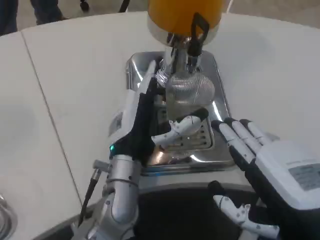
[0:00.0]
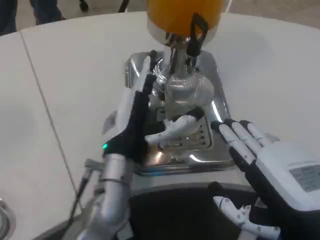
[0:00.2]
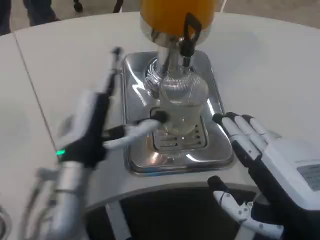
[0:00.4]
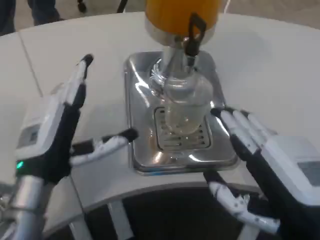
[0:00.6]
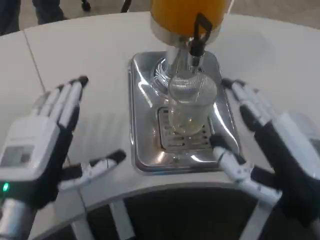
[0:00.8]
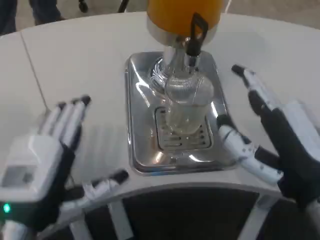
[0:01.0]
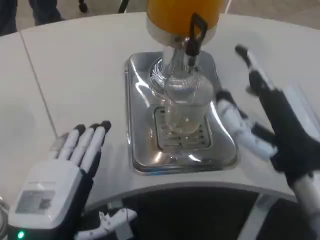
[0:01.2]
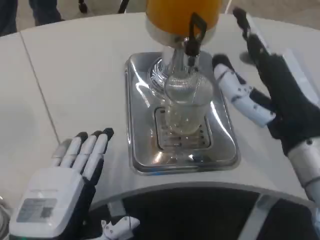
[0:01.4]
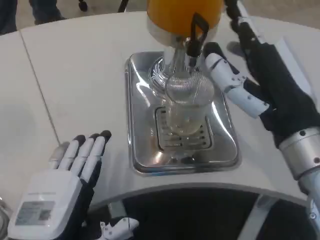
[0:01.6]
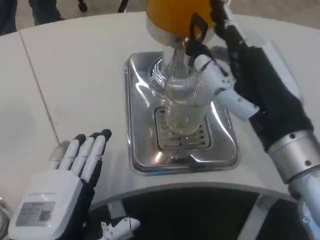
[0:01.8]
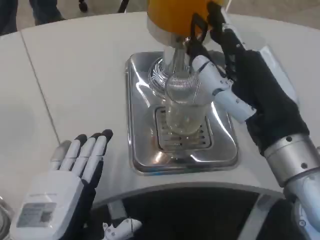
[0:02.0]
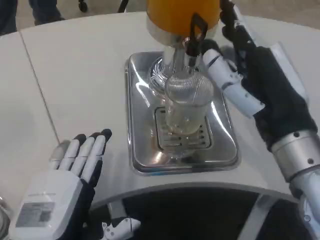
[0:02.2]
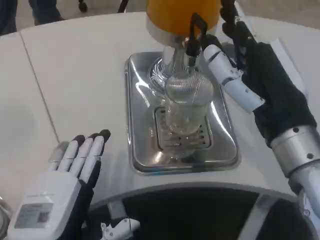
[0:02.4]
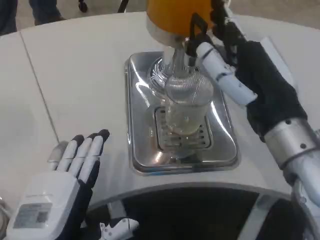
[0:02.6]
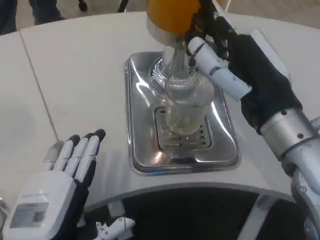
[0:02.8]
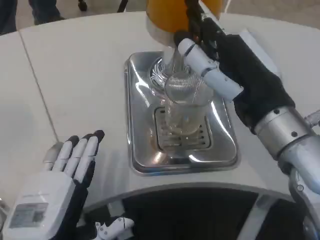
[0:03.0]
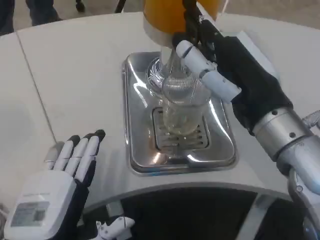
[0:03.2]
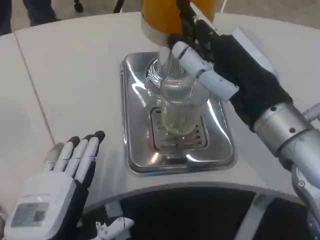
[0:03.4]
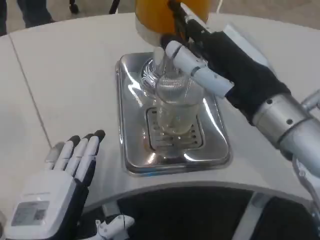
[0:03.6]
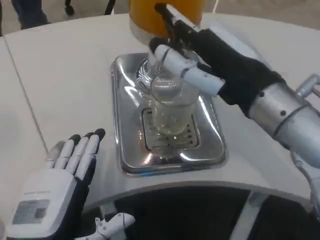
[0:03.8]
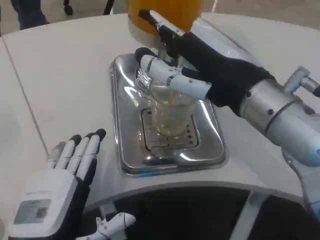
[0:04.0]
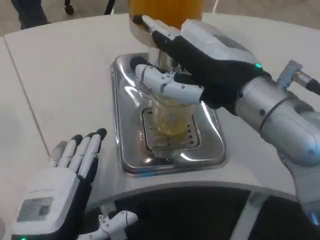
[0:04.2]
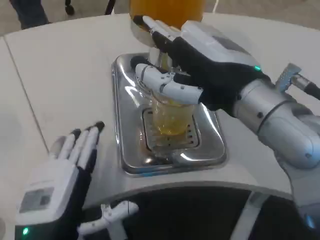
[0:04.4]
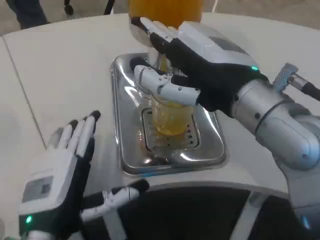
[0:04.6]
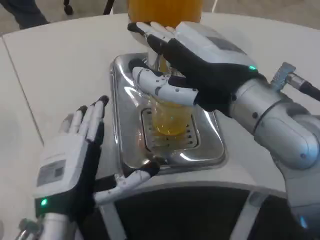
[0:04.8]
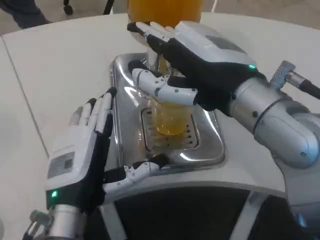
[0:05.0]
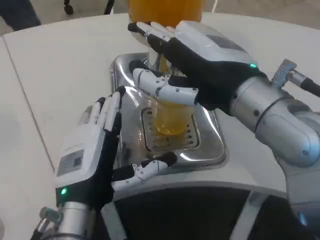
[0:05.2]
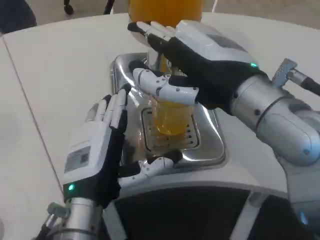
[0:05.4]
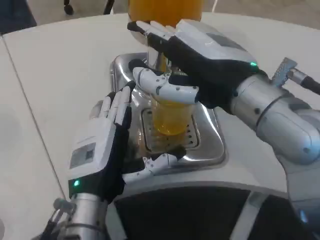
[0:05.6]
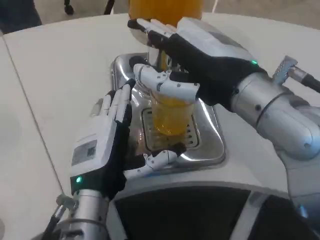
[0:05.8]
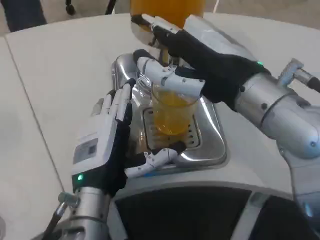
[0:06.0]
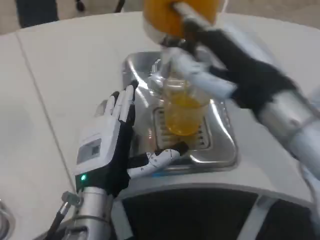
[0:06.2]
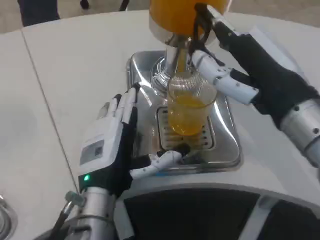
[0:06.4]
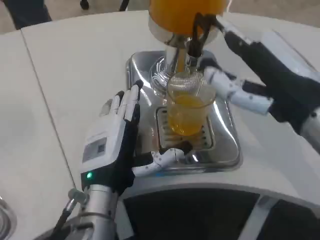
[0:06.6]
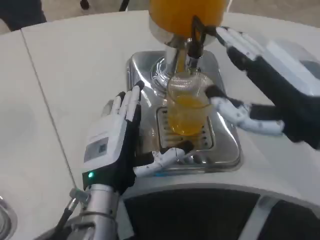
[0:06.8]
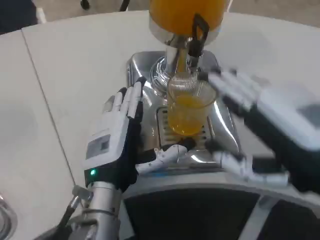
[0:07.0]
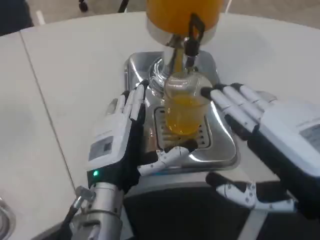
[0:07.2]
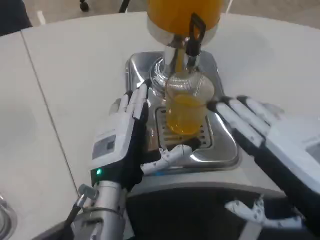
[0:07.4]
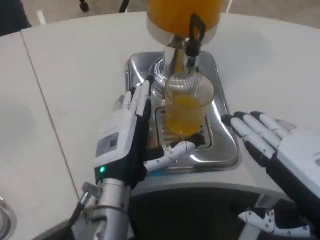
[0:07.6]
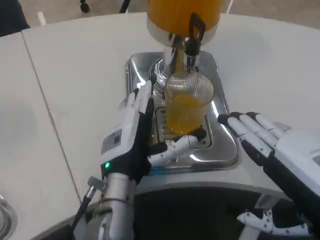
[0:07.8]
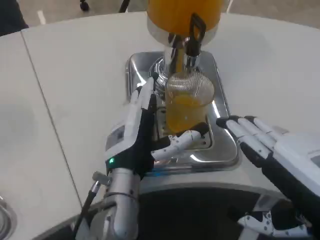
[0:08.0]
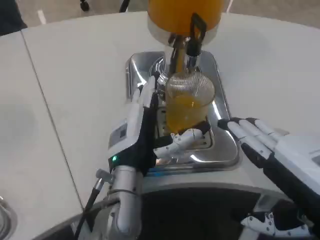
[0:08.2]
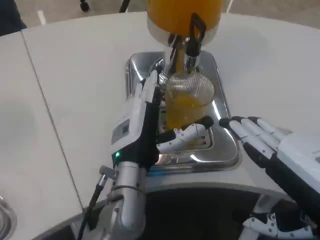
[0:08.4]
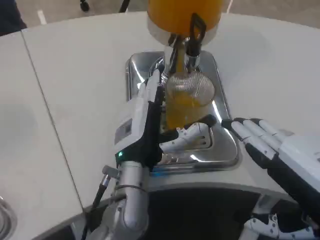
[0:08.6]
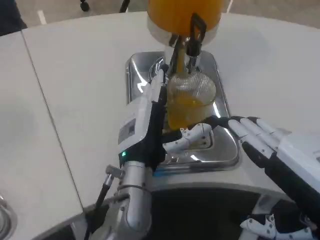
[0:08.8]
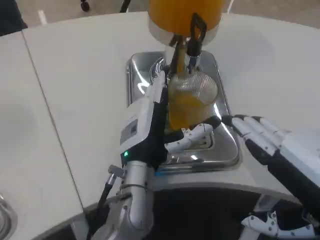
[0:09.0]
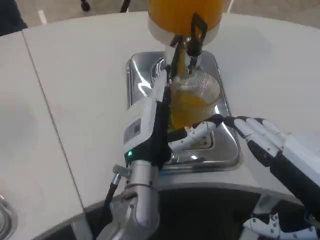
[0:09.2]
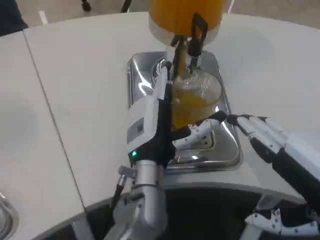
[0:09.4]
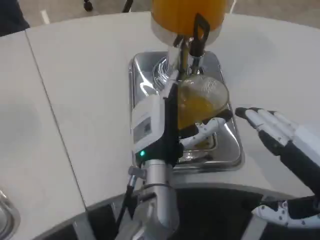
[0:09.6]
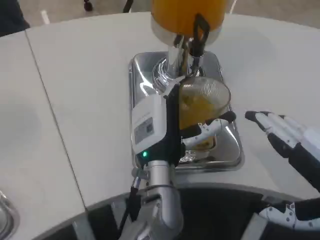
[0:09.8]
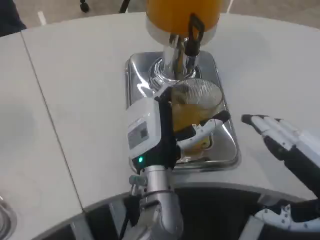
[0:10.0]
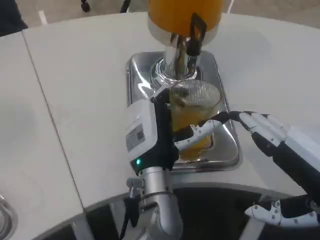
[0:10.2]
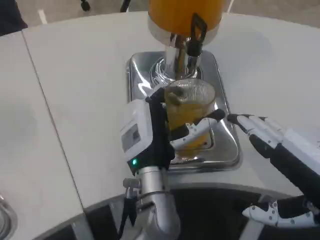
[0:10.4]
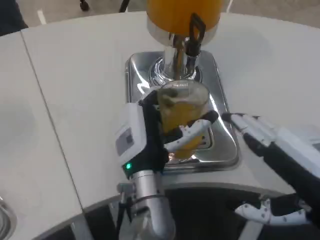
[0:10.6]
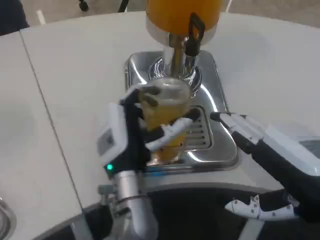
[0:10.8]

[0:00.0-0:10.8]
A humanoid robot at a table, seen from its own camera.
Task of the whole recording: Grasp the cup under the faucet to collect the drink, then remove the cup.
0:00.0 to 0:01.6: The left hand is displaced backward and to the left by approximately 20 cm, while the right hand goes about 10 cm forward and upward.
0:01.6 to 0:03.0: The hands make only small movements.
0:03.0 to 0:04.6: The right hand moves roughly 5 cm.
0:04.6 to 0:06.2: The left hand is displaced forward and to the right by about 10 cm.
0:06.2 to 0:07.8: The right hand goes about 15 cm backward, to the right and downward.
0:07.8 to 0:09.2: The hands move only a little.

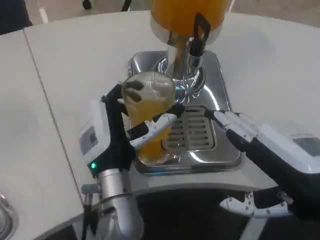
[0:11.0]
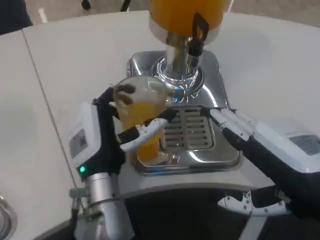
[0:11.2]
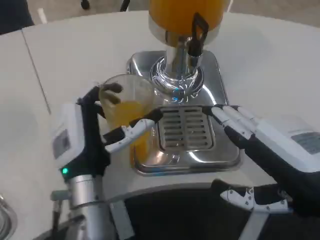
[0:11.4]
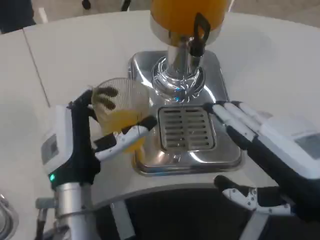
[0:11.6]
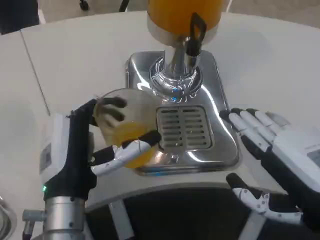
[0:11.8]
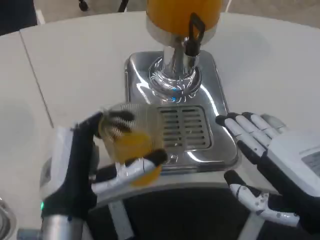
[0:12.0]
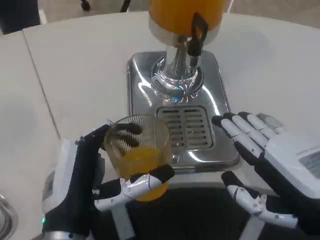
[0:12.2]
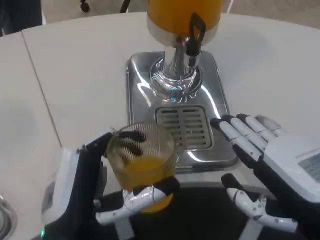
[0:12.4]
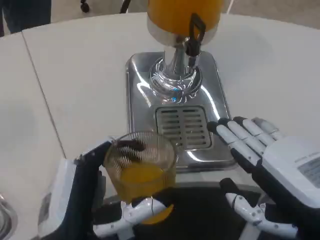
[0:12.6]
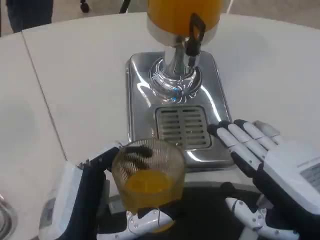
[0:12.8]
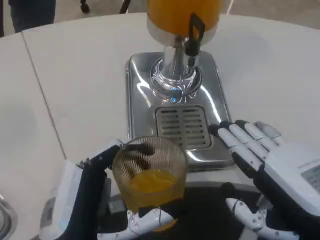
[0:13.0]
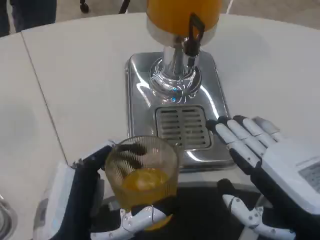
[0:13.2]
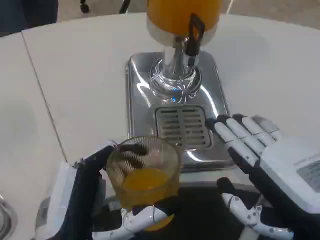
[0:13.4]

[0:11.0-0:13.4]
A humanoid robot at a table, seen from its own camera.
Task of the whole recording: Grasp the cup under the faucet to collect the drink, then remove the cup.
0:11.0 to 0:12.2: The left hand heads backward and to the left, covering approximately 15 cm.

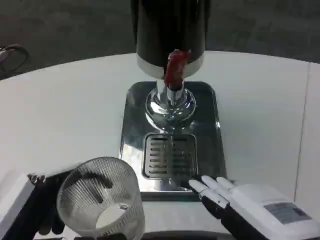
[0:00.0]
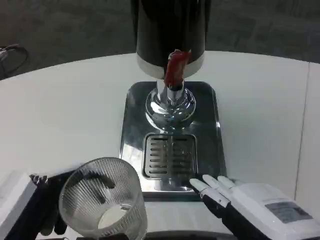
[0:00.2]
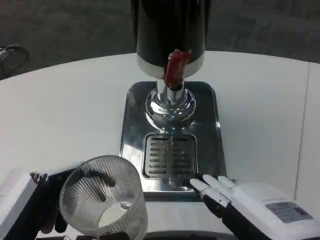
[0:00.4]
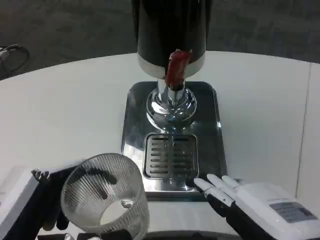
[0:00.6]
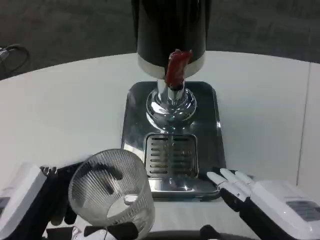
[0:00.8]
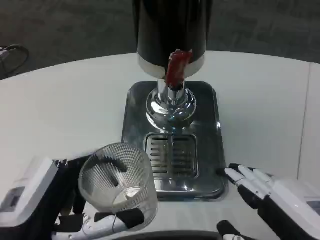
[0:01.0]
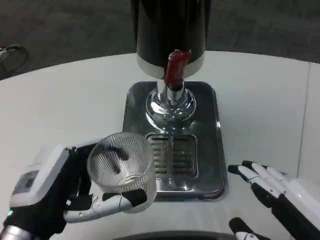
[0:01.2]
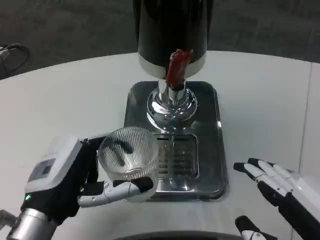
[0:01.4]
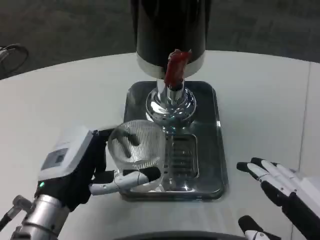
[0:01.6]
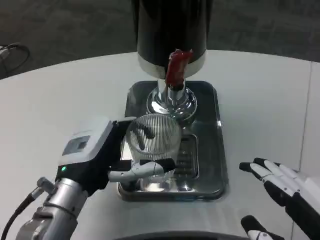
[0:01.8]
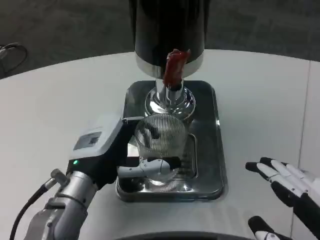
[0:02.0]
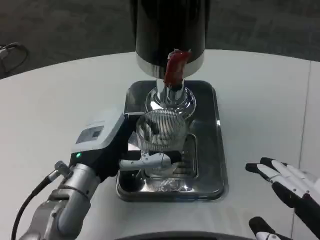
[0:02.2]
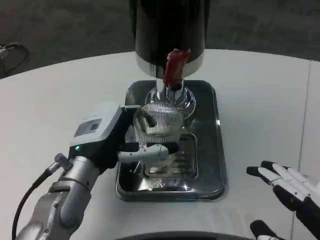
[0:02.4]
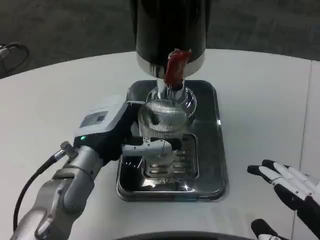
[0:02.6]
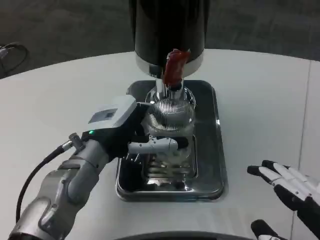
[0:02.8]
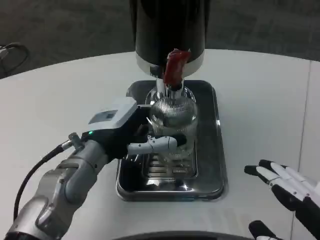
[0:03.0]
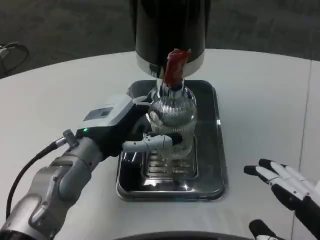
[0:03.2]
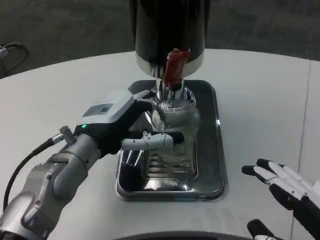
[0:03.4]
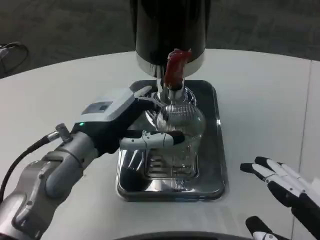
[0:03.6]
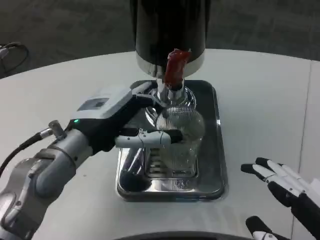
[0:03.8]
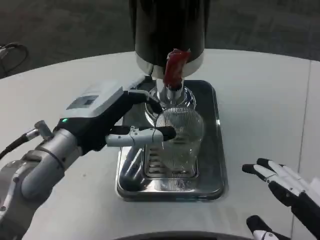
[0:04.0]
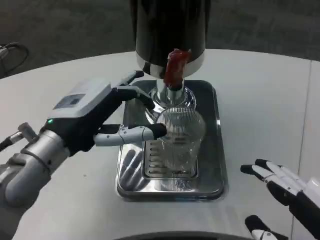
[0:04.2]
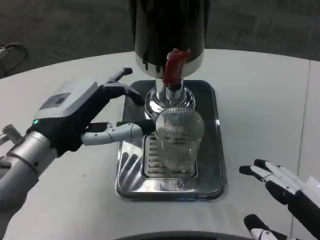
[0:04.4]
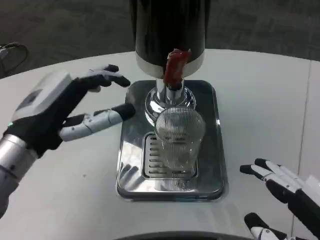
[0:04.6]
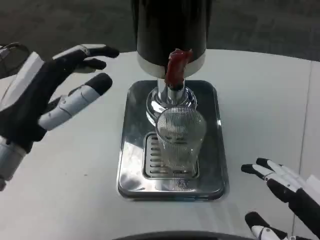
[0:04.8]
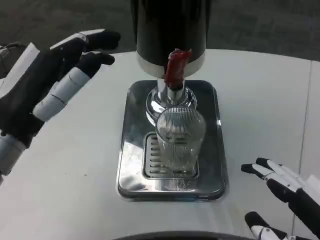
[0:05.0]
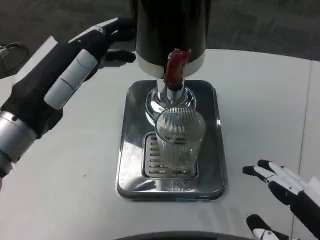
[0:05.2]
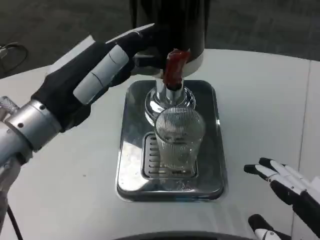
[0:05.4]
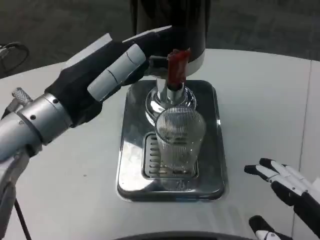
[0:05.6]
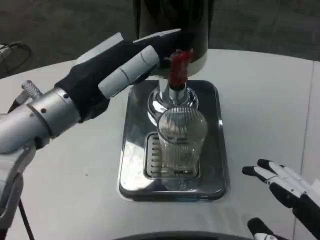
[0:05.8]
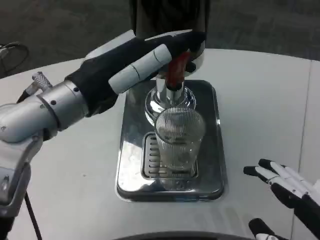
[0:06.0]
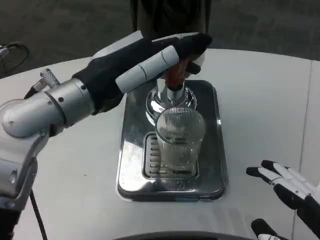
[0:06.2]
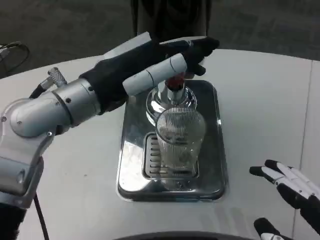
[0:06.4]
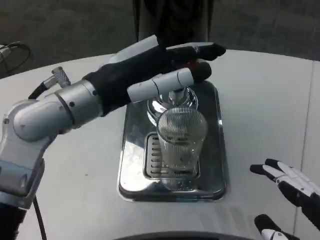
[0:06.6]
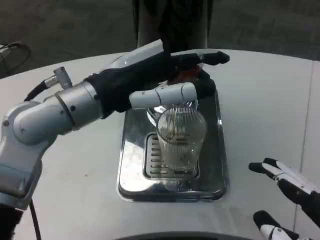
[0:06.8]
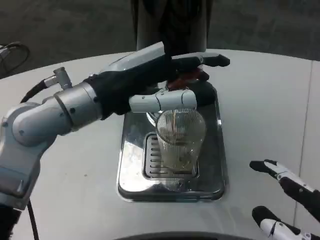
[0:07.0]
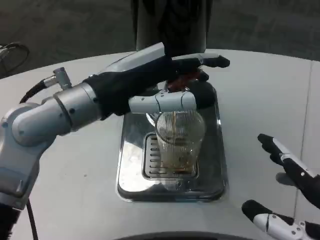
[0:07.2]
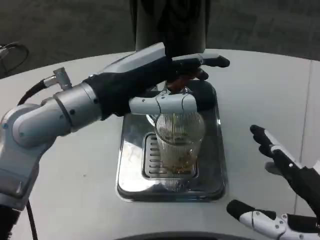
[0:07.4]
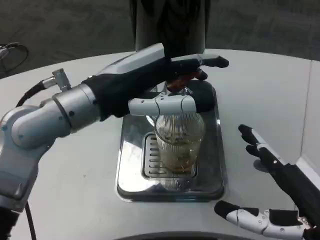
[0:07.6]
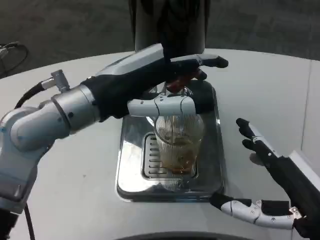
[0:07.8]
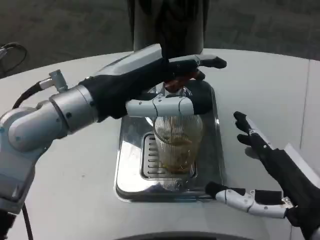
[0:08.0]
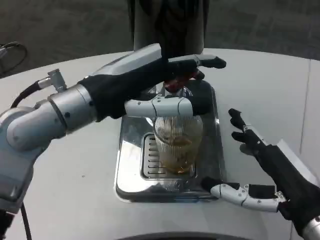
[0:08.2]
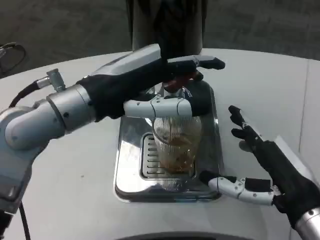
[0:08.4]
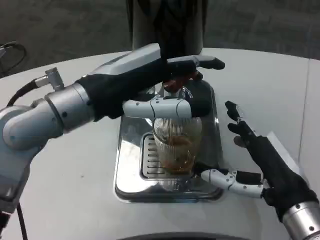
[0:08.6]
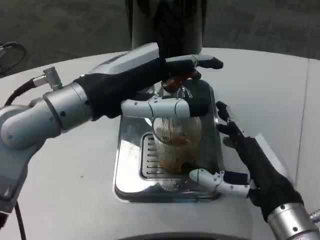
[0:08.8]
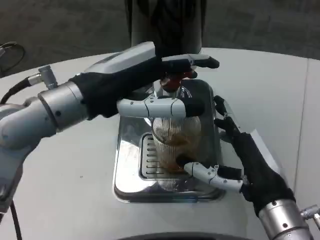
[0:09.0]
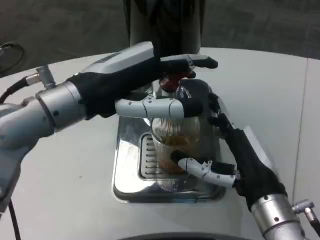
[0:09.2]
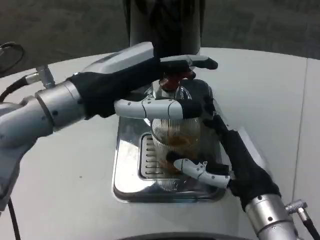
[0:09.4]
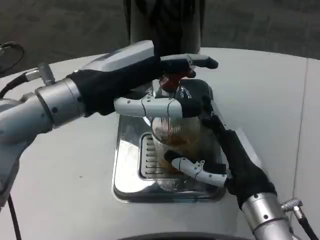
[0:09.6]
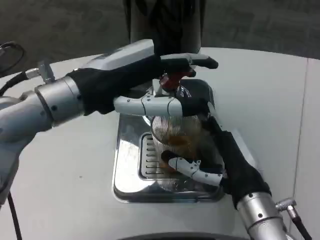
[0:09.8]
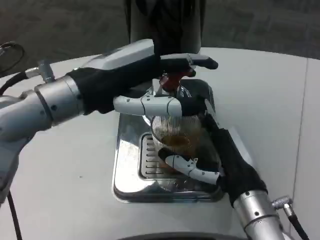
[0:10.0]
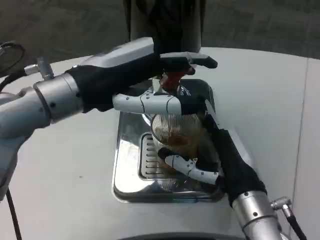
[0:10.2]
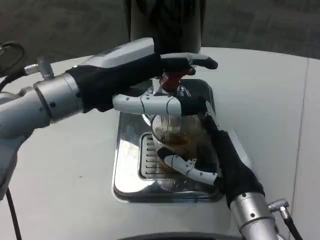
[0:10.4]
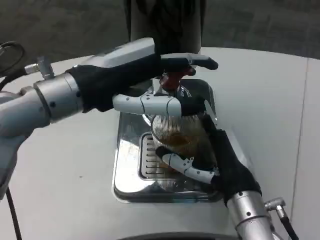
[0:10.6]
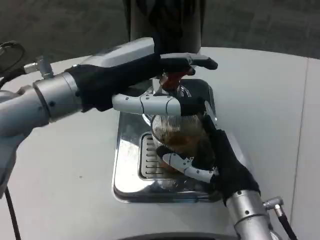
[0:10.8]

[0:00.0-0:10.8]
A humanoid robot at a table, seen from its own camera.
Task of the whole recording: Grasp the cup under the faucet to collect the drink, then remove the cup.
0:00.0 to 0:01.6: The left hand travels forward by approximately 15 cm.
0:01.6 to 0:03.0: The left hand is displaced forward by roughly 10 cm.
0:03.0 to 0:04.6: The left hand is displaced to the left and backward by approximately 10 cm.
0:04.6 to 0:06.2: The left hand heads upward and to the right, covering some 10 cm.
0:06.2 to 0:07.8: The right hand moves forward, approximately 10 cm.
0:07.8 to 0:09.2: The right hand moves forward and to the left, approximately 10 cm.
